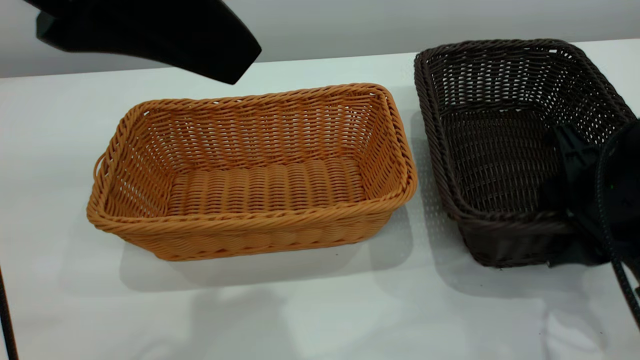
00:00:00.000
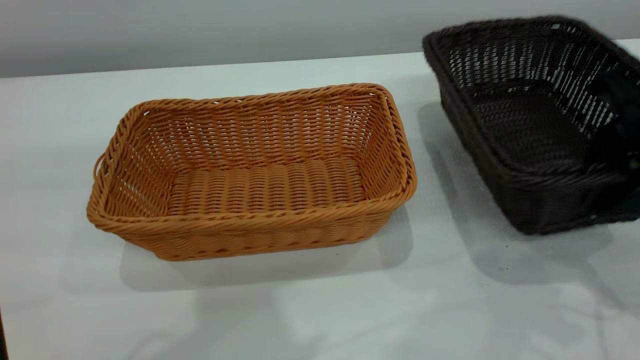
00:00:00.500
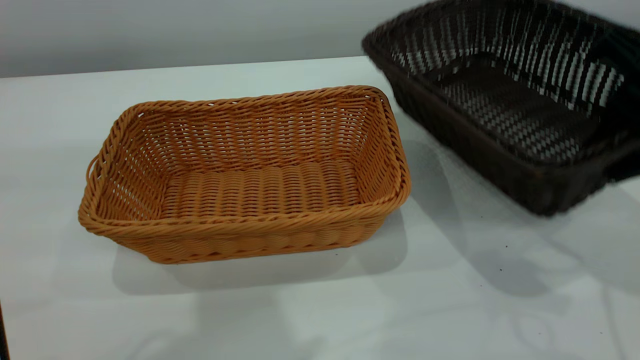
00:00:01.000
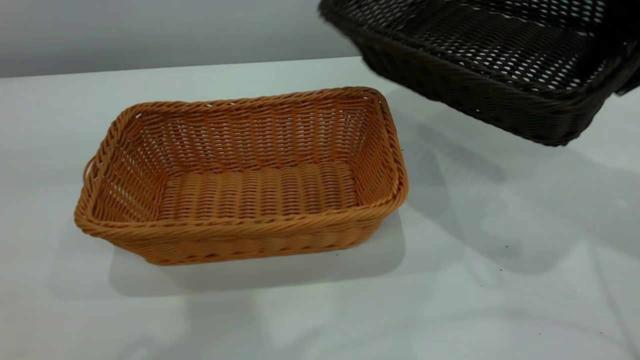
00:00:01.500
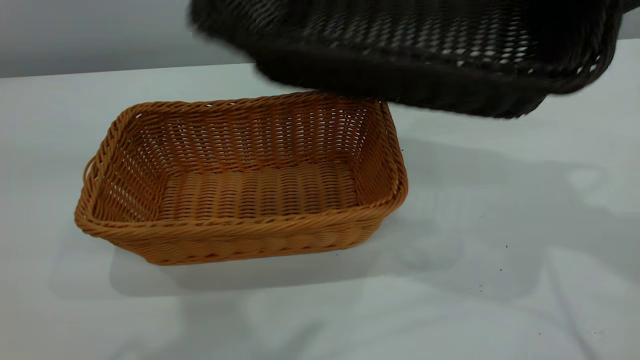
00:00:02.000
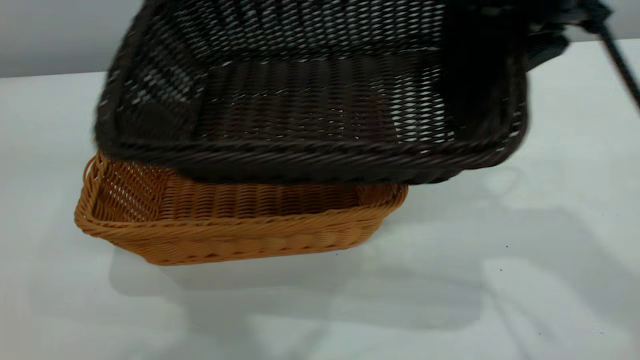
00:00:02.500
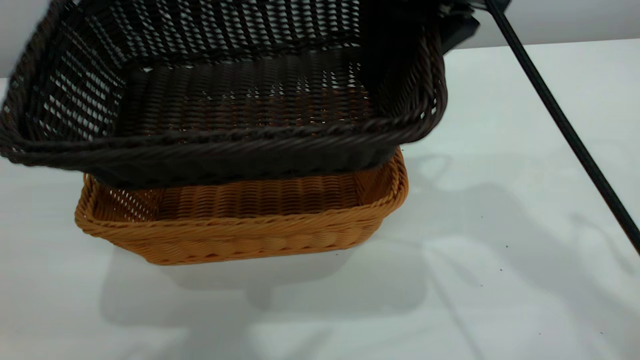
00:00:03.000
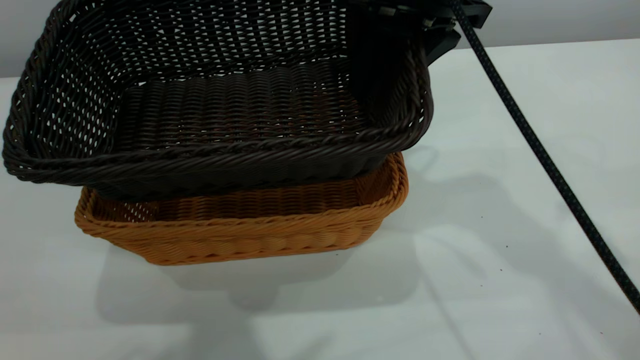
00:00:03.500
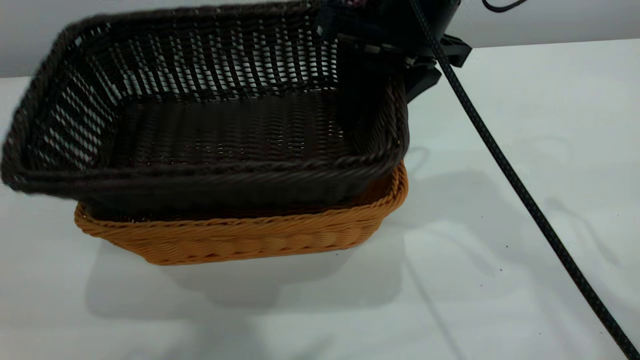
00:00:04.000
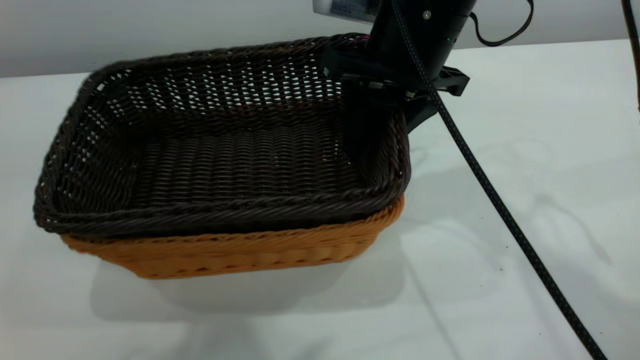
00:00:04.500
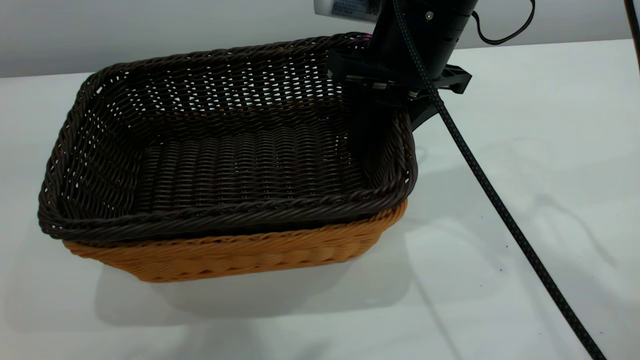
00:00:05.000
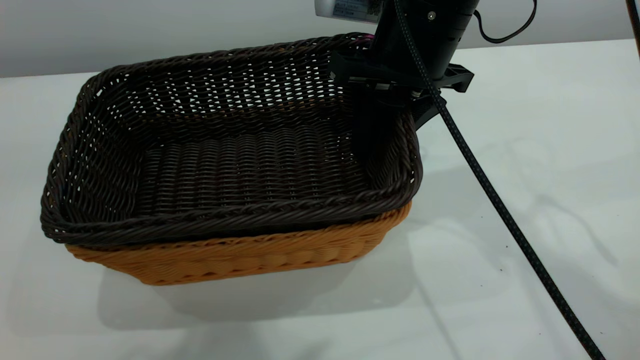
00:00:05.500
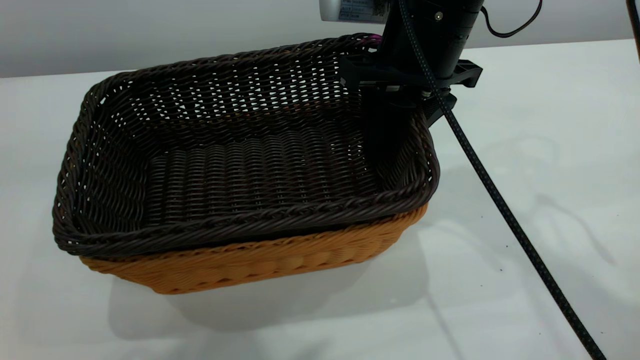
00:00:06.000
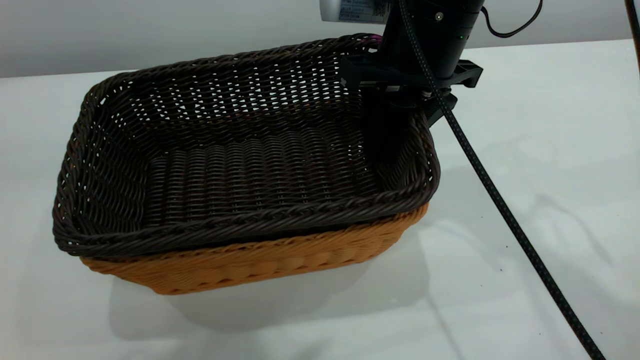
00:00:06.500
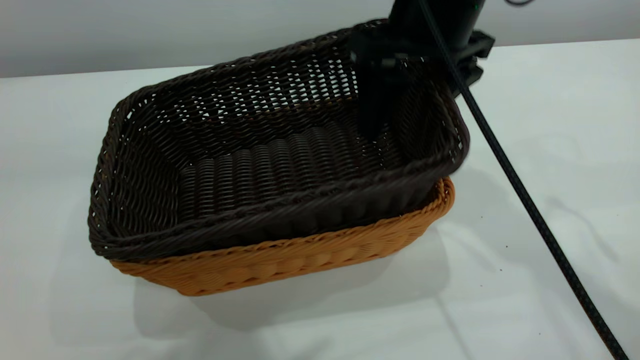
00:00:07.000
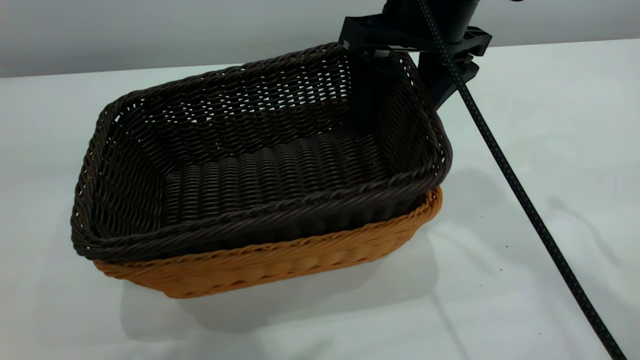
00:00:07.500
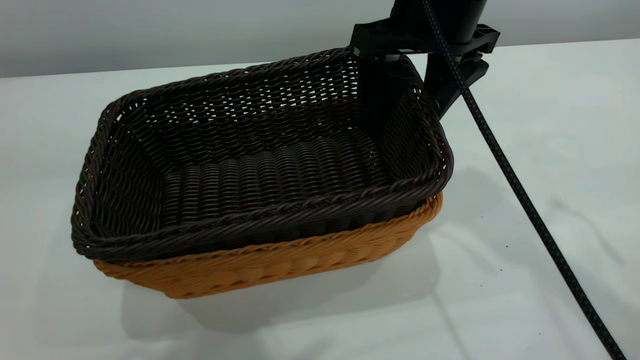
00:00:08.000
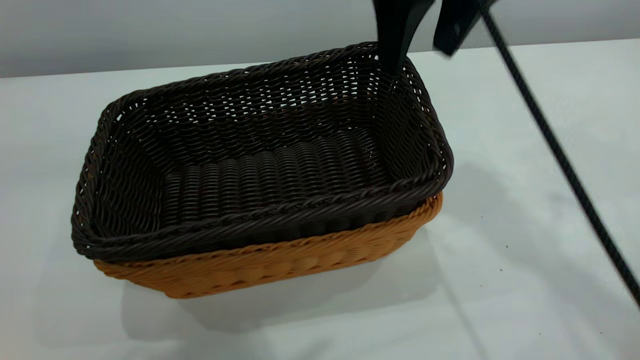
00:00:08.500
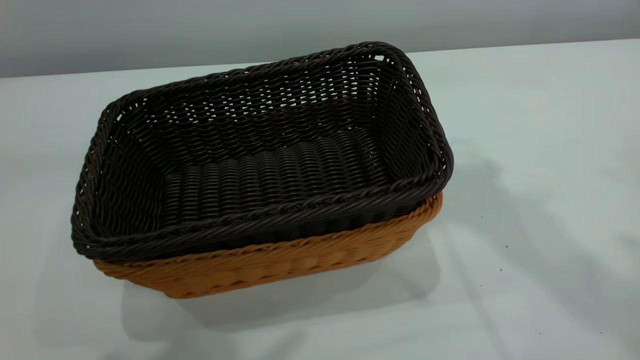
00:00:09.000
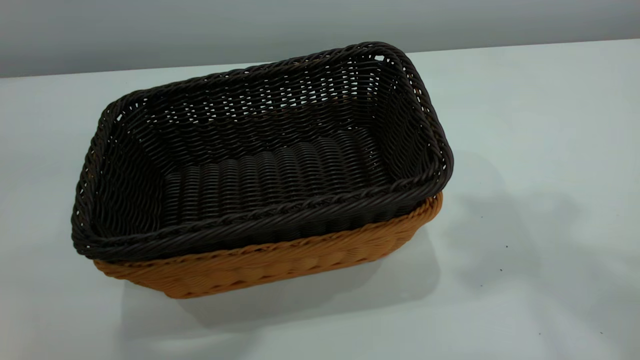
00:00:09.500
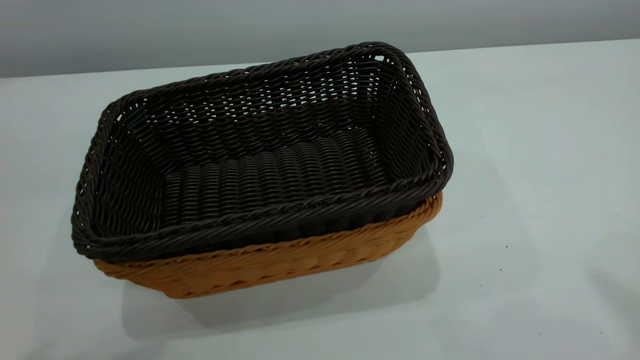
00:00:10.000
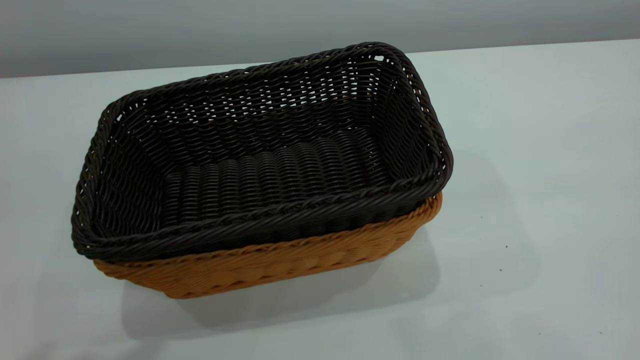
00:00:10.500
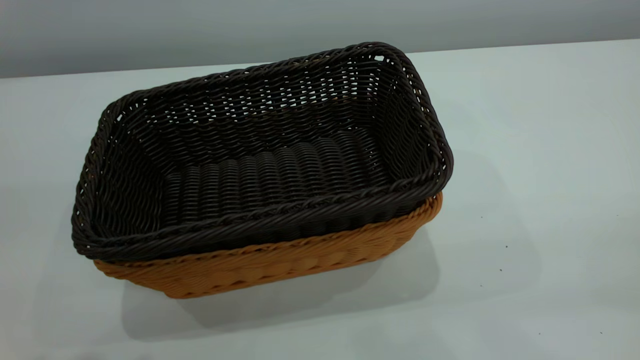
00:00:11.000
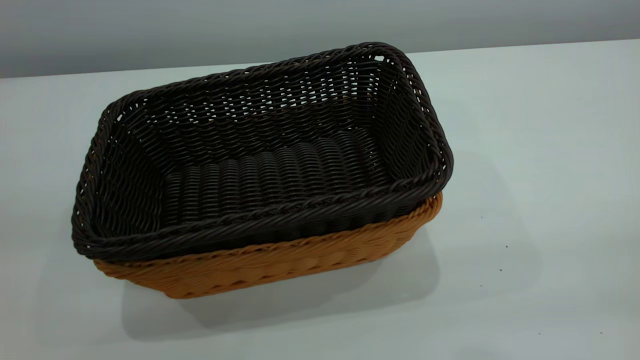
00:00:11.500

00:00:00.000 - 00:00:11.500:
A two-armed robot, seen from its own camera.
Task of the whole recording: the left gripper grasp the brown basket and place it in the center of the table, the right gripper grasp the black basket and place it inside the brown one.
Step, 00:00:02.000 - 00:00:08.500: Place the dark basket on top of the light basket.
00:00:00.000 - 00:00:02.000: The left gripper goes approximately 5 cm upward. Meanwhile the right gripper is displaced upward and forward by approximately 20 cm.
00:00:02.000 - 00:00:04.000: The right gripper goes roughly 15 cm to the left, downward and forward.
00:00:06.000 - 00:00:07.500: The right gripper opens.
00:00:07.500 - 00:00:09.500: The right gripper goes approximately 30 cm upward, and closes up. The left gripper changes place by some 5 cm, and closes its fingers.
